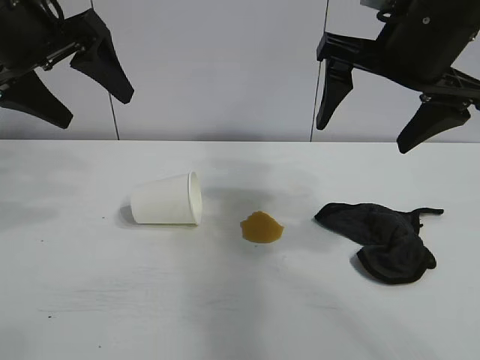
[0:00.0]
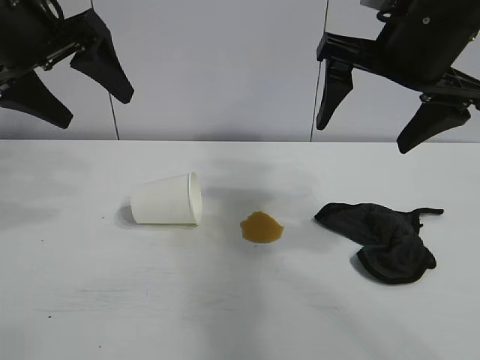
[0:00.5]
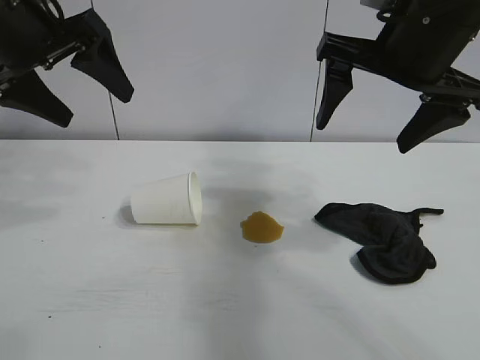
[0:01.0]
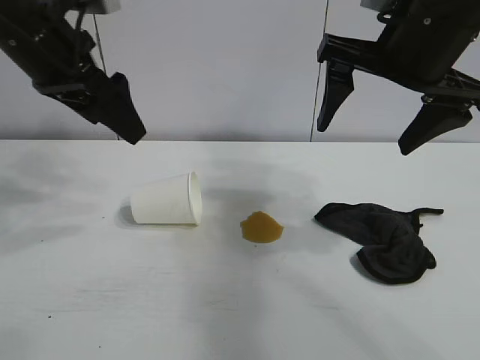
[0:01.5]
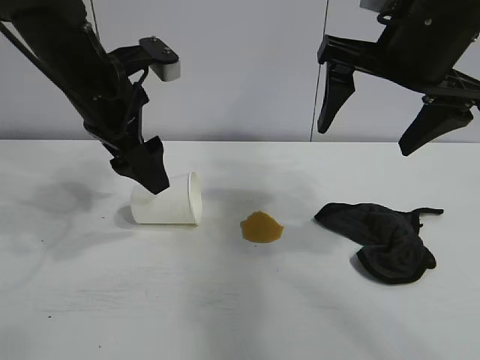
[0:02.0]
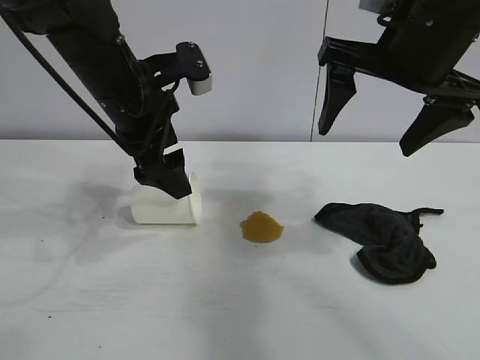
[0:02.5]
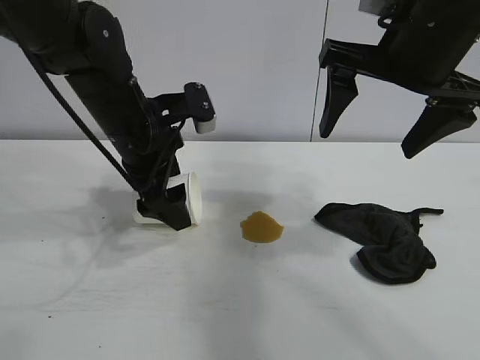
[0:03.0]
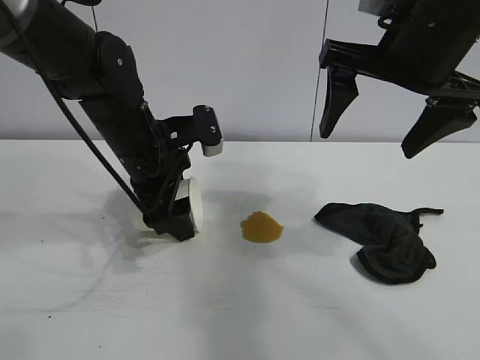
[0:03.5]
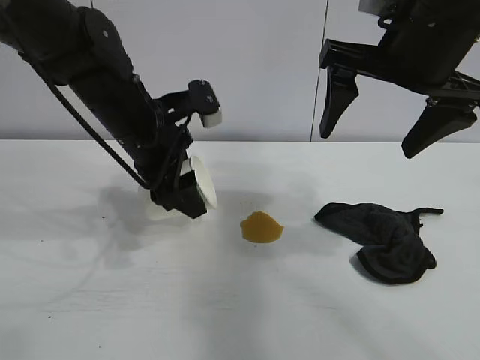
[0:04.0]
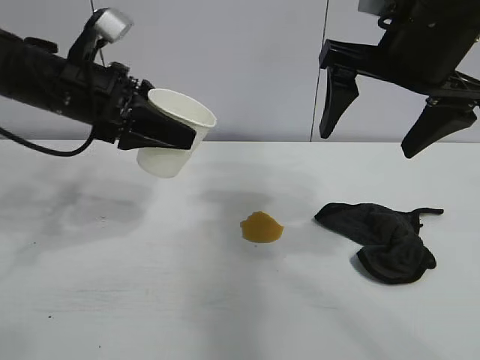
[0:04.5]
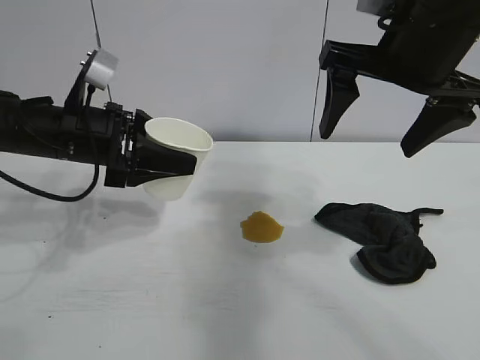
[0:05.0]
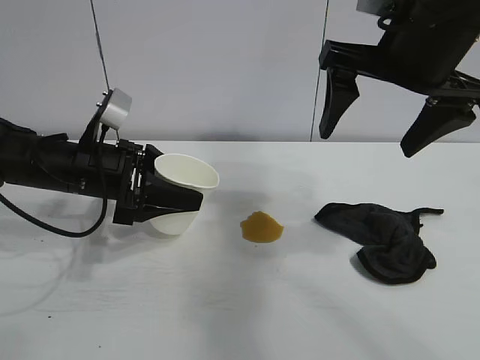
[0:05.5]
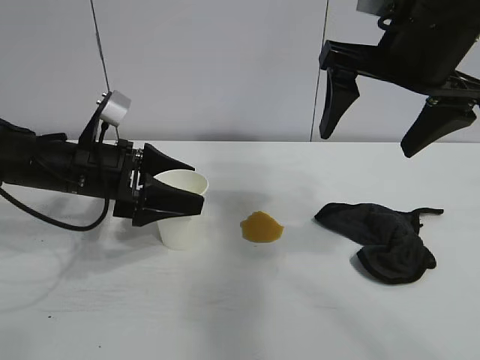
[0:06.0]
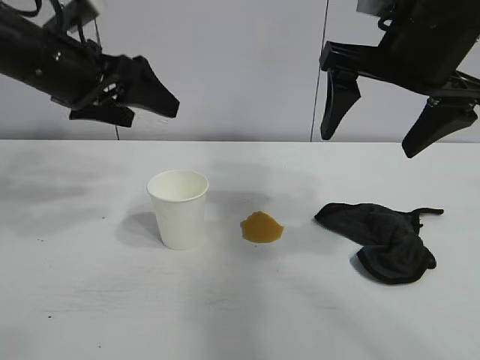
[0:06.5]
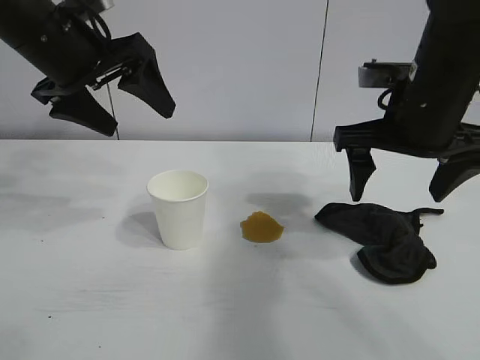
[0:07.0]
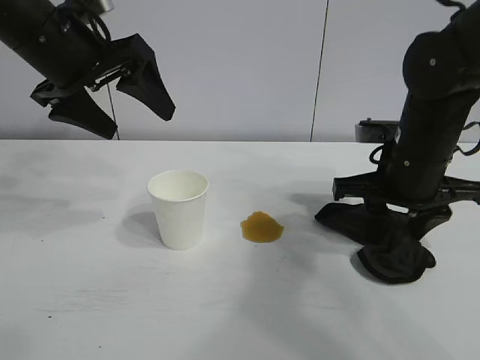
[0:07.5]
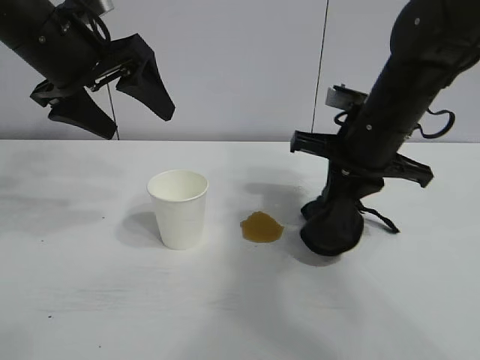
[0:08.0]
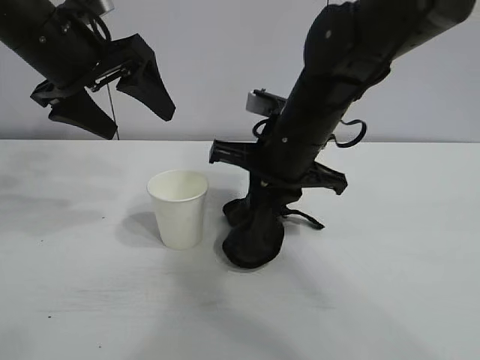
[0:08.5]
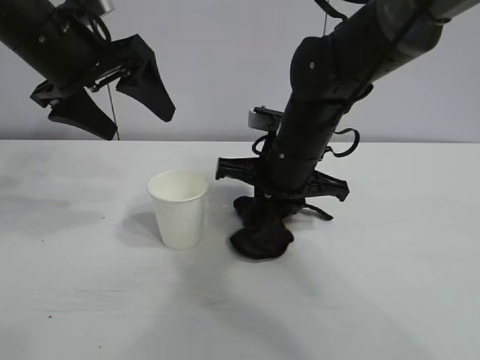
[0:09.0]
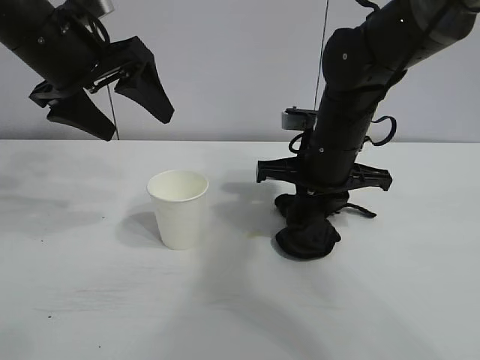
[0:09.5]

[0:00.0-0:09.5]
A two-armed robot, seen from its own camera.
Task of the whole recording: the left gripper pick up the fallen cup and place it upright, the right gripper grasp the black rag and wipe the stain on the table, the right gripper put the black rag back in its original position.
Step, 0:01.5 to 0:03.5: Grasp the paper cup with left gripper.
Step, 0:04.0 to 0:05.5: Stand the paper cup upright with left gripper.
Step, 0:06.0 to 0:07.5: Grasp the rag with right gripper.

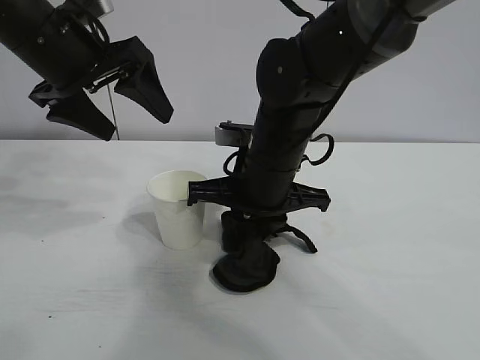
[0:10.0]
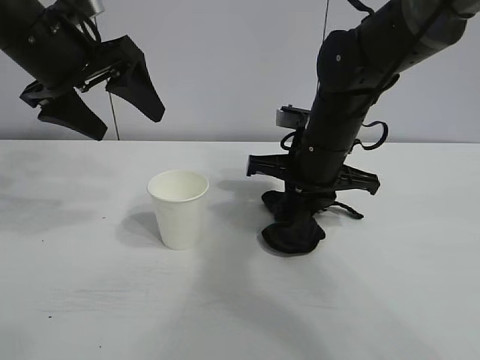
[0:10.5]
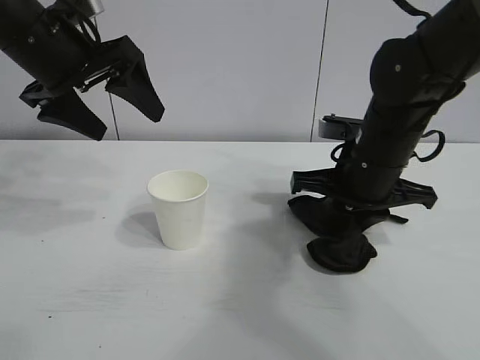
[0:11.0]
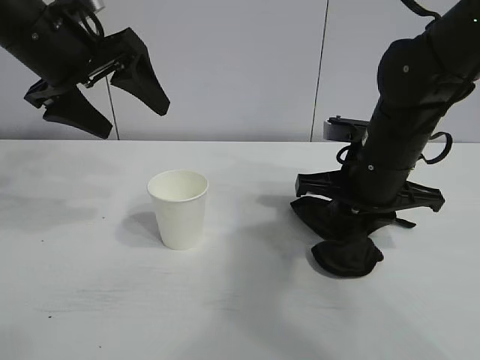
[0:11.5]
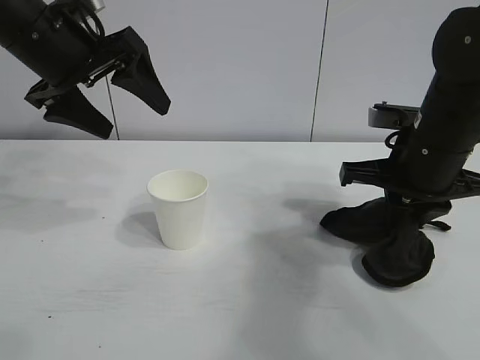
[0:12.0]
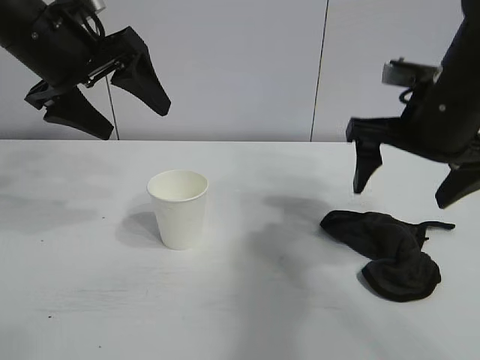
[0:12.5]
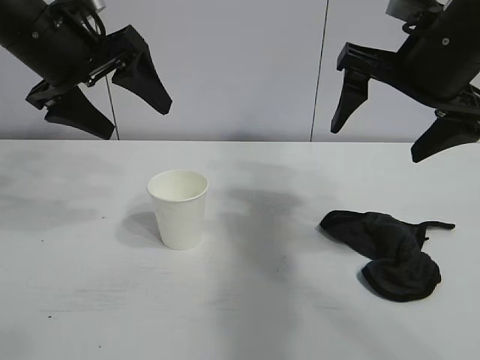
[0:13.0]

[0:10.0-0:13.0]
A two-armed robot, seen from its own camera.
Task of the whole recording: the left gripper pick up the fallen cup and place it upright, the right gripper grasp the black rag and wipe the stain on the table, the right gripper put the black rag back in its original position.
Step, 0:11.5 to 0:12.0: Place the rag on the table with right gripper.
